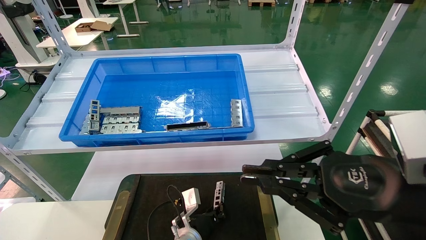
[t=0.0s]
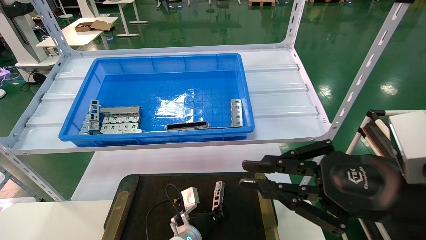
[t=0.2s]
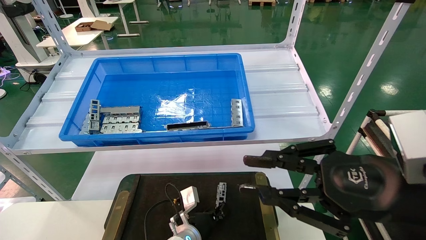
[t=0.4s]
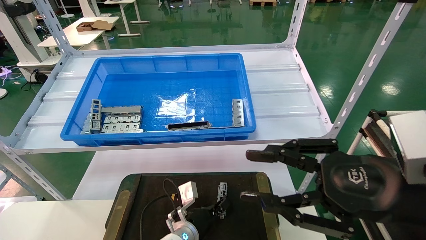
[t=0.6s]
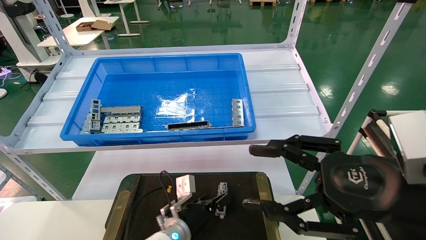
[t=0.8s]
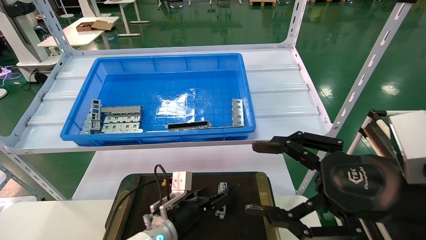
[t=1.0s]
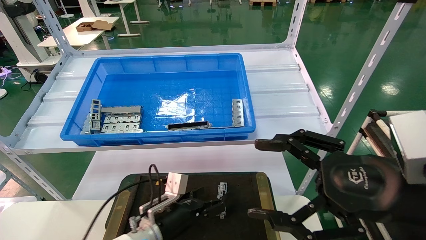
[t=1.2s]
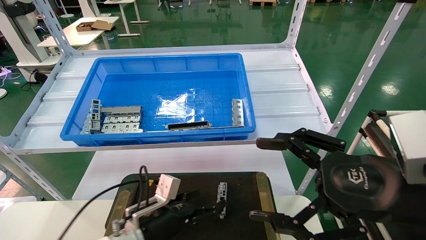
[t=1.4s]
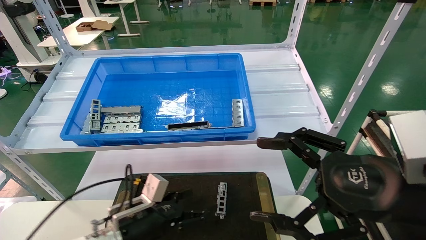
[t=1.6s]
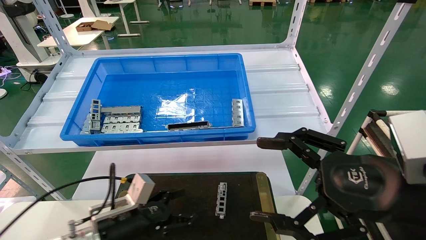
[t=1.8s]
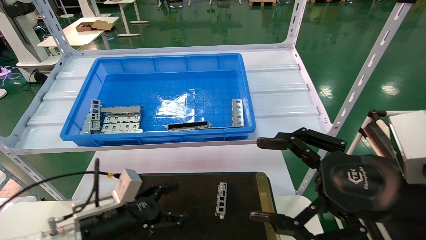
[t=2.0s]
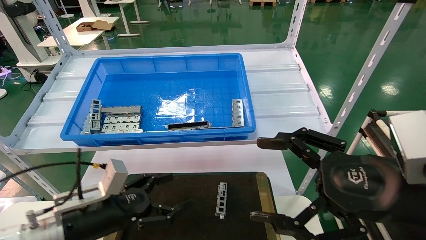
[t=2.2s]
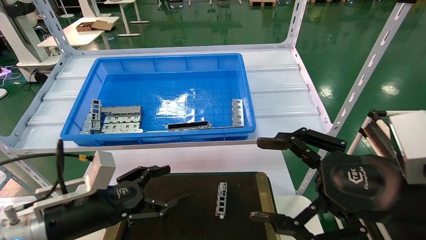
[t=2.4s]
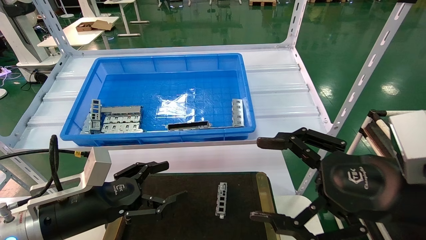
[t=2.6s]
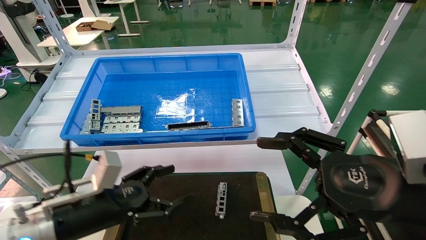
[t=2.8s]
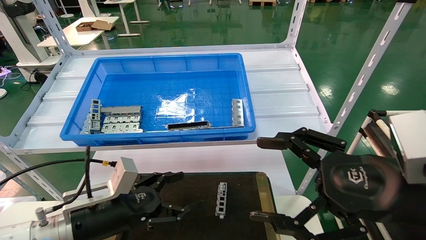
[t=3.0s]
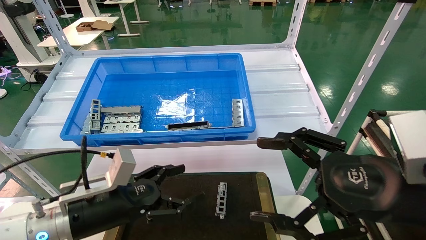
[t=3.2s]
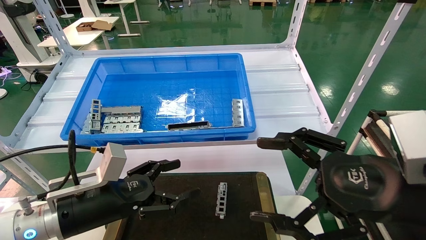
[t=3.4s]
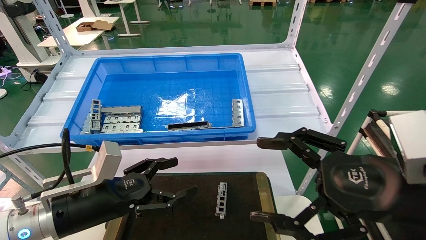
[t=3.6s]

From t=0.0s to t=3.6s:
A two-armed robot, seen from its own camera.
Task of the whole recording: Grasp the part with one hand and place it on the black container.
From t=0.0s to t=1.8s: The left gripper moves to the left, upward and backward, some 20 cm, and opens up. Meanwhile the right gripper opens.
From t=1.8s to t=3.6s: The left gripper shifts approximately 10 cm upward.
